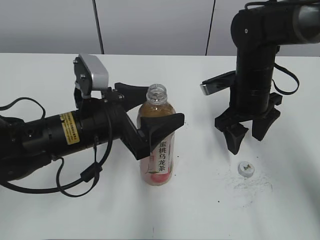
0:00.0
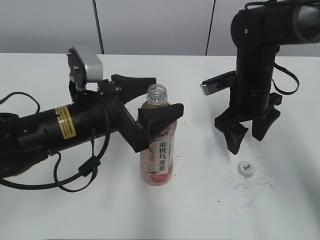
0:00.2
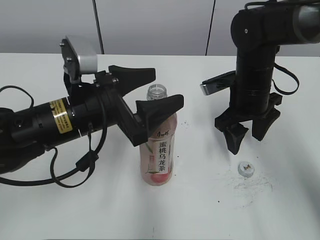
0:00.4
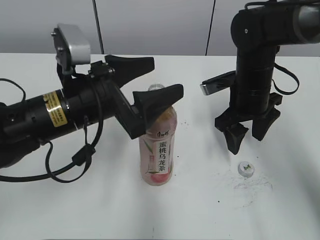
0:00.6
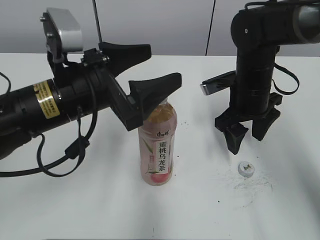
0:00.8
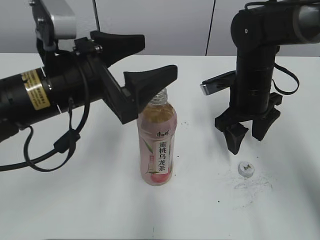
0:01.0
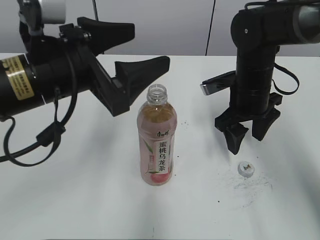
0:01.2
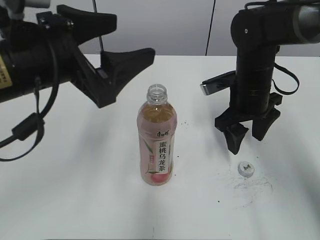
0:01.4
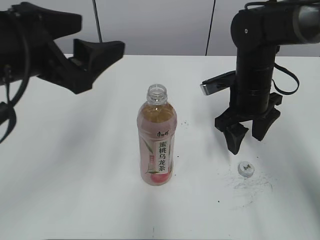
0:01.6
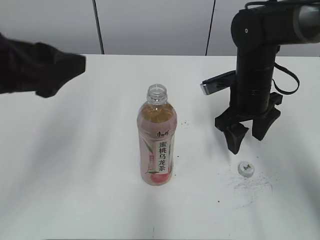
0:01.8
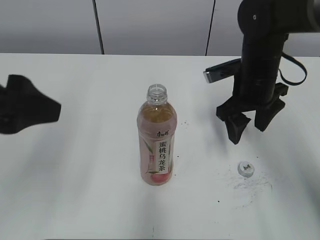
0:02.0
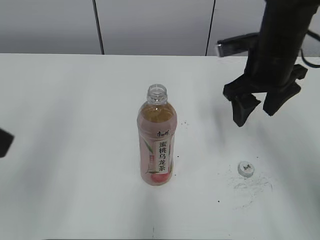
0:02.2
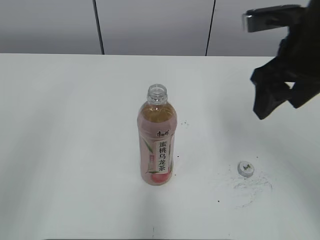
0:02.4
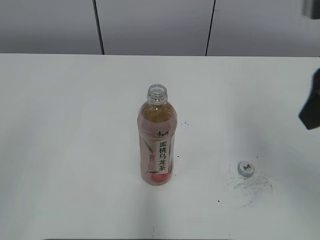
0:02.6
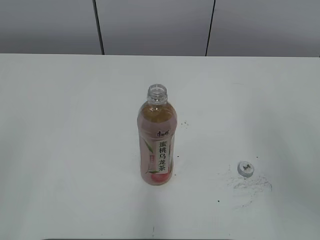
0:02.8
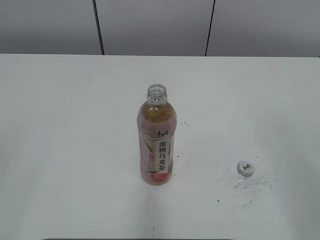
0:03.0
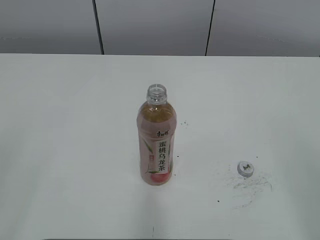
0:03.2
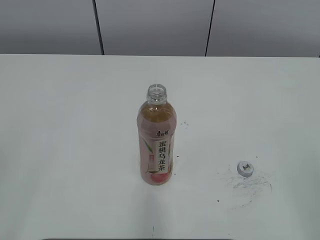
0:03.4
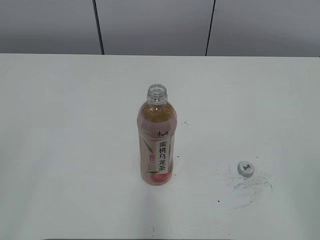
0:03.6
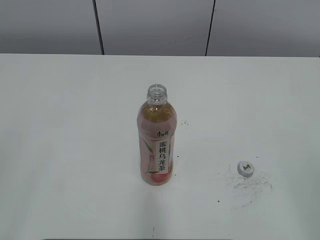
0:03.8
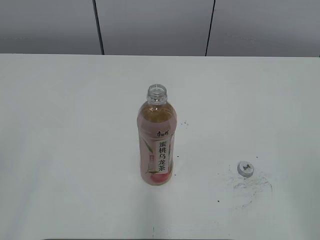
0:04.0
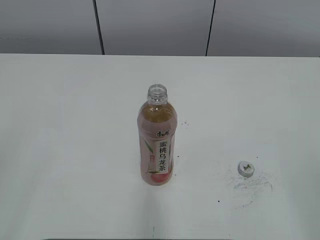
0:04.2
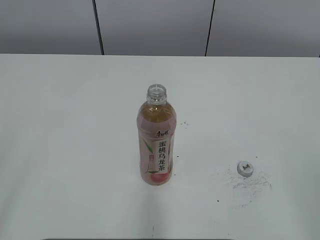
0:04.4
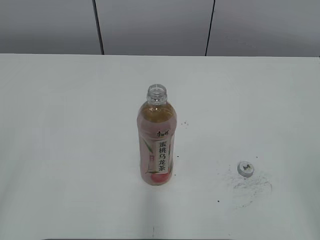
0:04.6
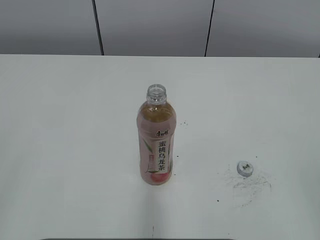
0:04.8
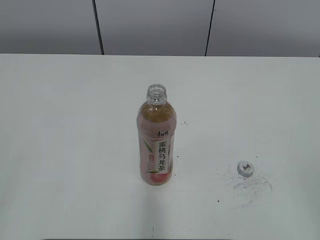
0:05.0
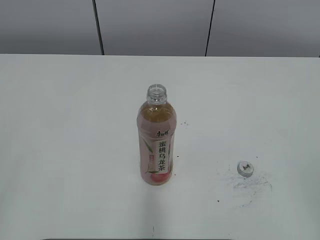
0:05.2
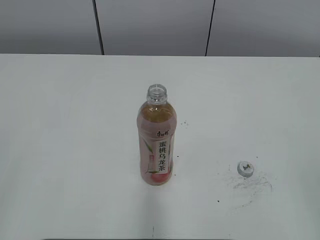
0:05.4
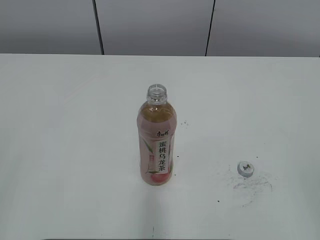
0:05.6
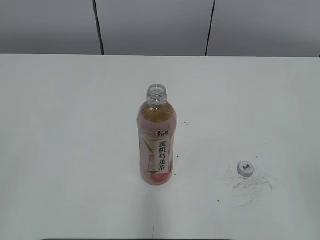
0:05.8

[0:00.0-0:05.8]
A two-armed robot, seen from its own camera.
0:00.0 to 0:01.4: The left gripper travels upward by some 10 cm.
0:01.4 to 0:02.8: The left gripper heads backward and to the left, covering roughly 25 cm. The right gripper is displaced backward and upward by roughly 30 cm.
0:02.8 to 0:04.4: The right gripper goes approximately 15 cm backward, downward and to the right.

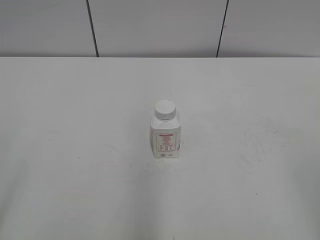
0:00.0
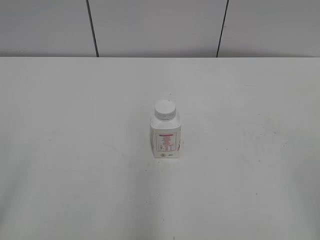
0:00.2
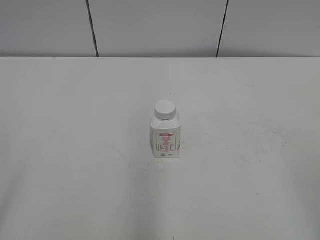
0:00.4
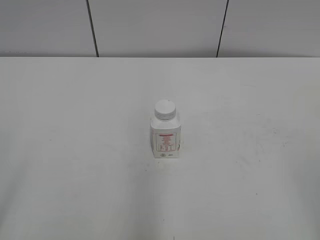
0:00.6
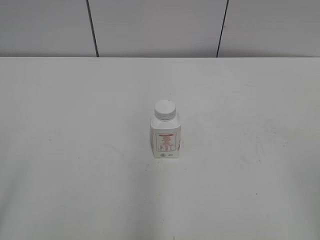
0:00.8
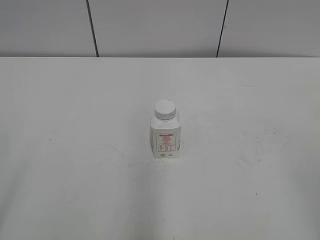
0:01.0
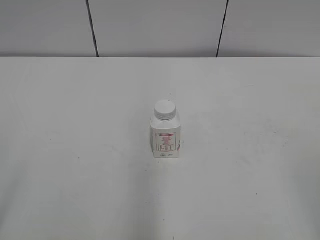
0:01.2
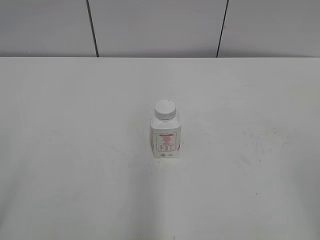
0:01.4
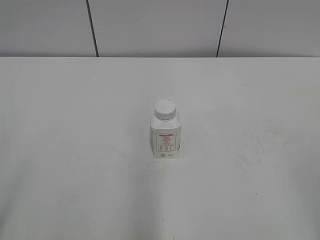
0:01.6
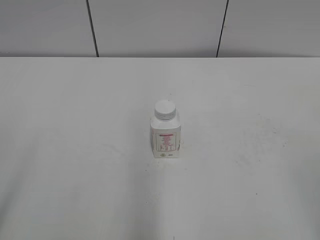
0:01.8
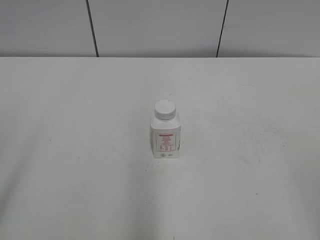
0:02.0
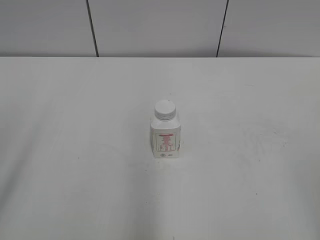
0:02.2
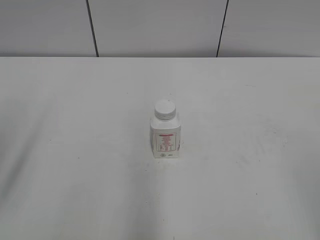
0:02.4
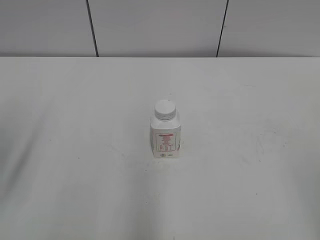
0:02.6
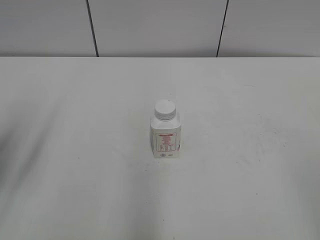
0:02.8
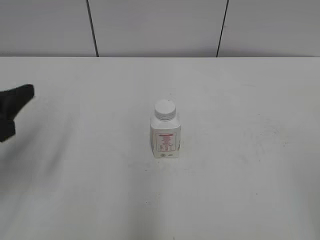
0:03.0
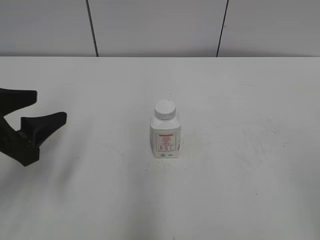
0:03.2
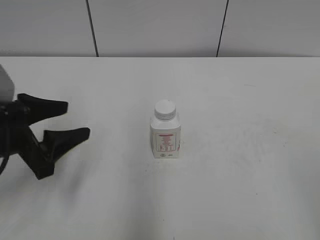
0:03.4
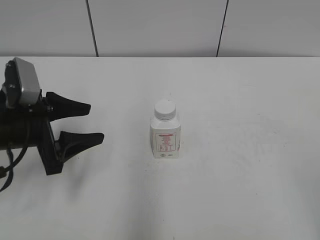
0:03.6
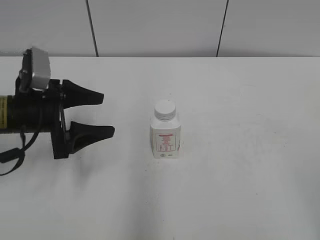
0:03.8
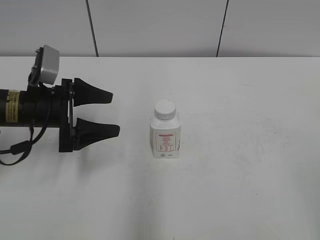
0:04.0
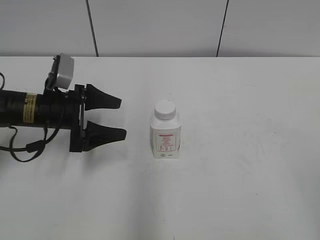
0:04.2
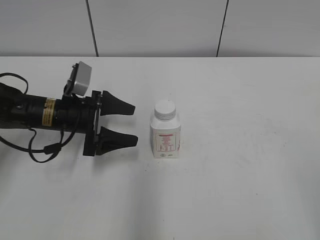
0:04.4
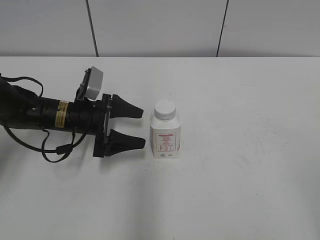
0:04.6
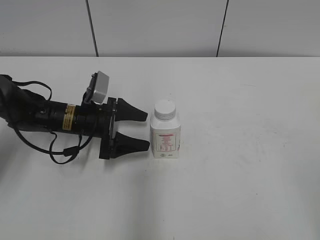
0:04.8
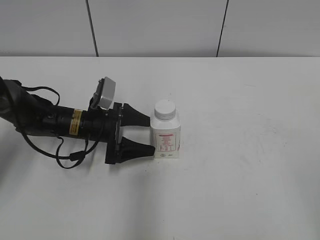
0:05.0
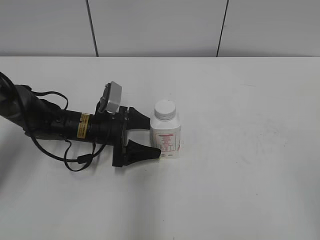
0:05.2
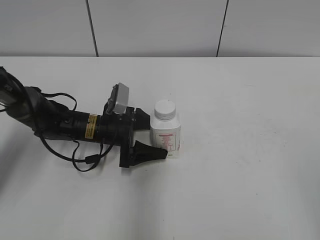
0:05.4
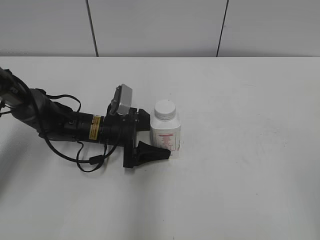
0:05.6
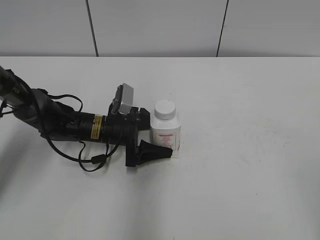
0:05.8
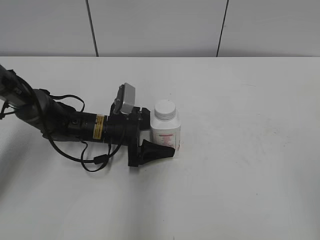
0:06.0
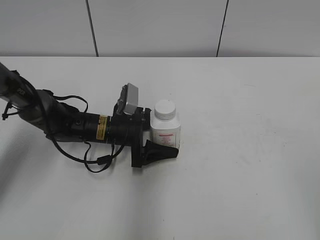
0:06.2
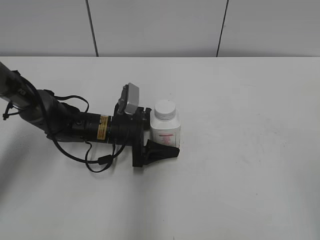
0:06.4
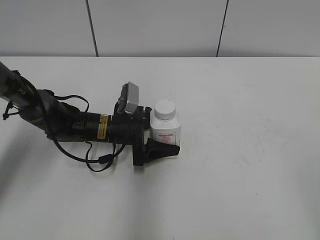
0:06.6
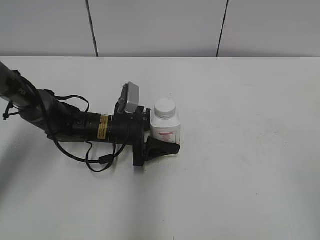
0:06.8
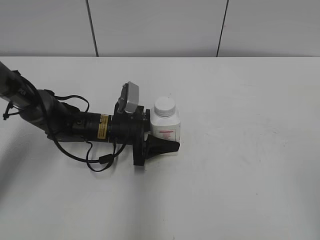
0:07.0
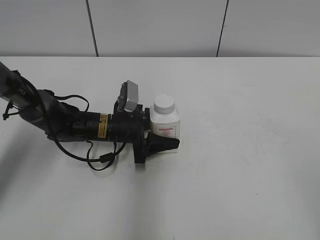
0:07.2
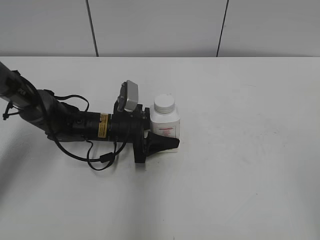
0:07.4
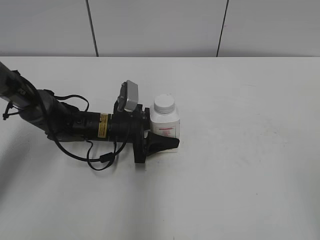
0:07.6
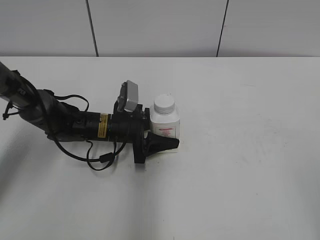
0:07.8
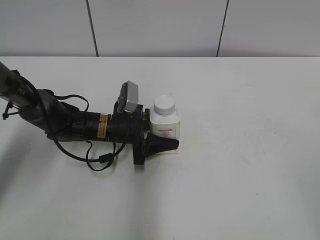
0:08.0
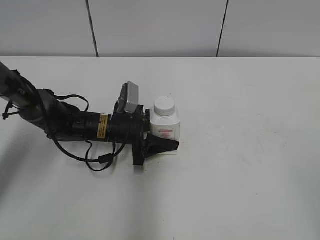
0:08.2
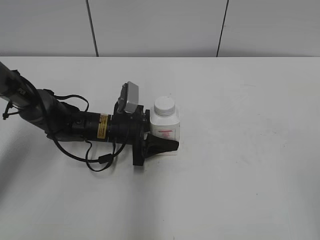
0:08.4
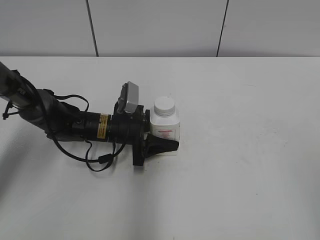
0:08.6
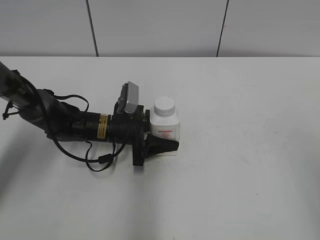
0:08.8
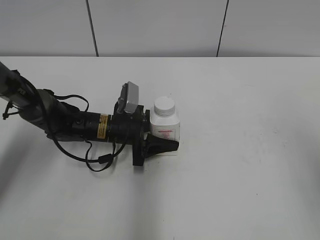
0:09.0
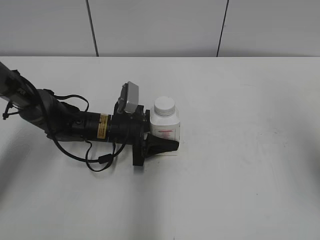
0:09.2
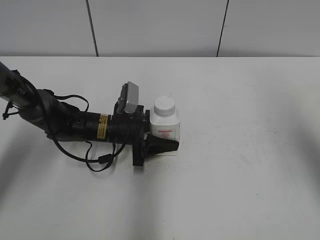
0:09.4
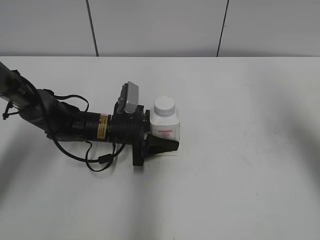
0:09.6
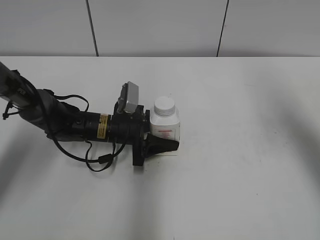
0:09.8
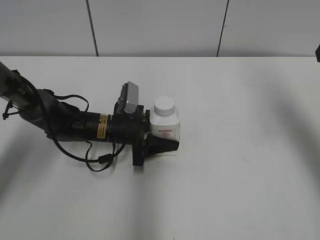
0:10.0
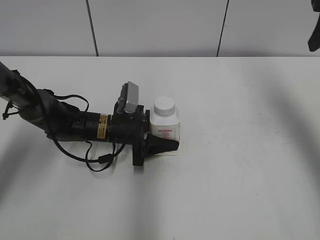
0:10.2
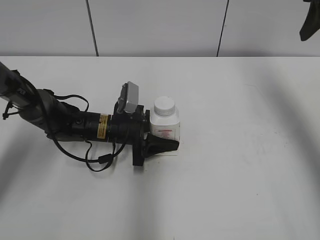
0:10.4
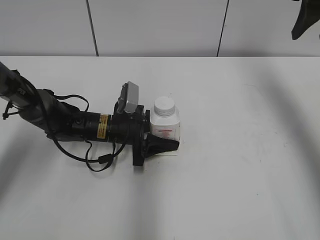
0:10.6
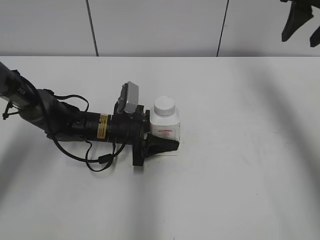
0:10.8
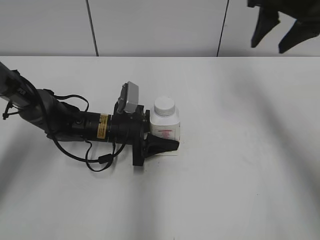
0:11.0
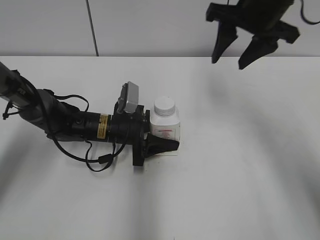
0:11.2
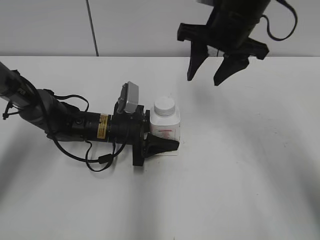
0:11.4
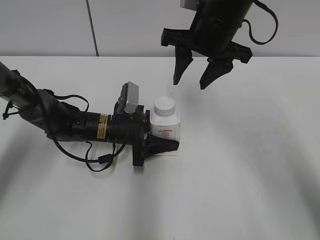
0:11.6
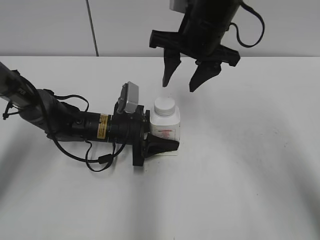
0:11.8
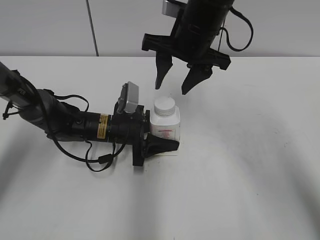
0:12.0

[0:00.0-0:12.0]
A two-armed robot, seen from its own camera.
Step, 0:00.0 to 0:07.6: Grab the Yili Changqing with the left hand.
0:01.6 to 0:03.0: The left gripper shifts roughly 20 cm forward.
0:03.0 to 0:04.4: The left gripper shifts approximately 20 cm forward, downward and to the right, and opens up.
0:04.4 to 0:06.0: The left gripper travels to the right and downward by roughly 10 cm.
0:06.0 to 0:07.6: The left gripper closes.
0:07.6 to 0:09.0: The right gripper travels forward and upward by about 10 cm.
0:09.0 to 0:10.4: The right gripper moves forward, about 25 cm, and closes up.
0:10.4 to 0:12.0: The right gripper moves to the left and downward, approximately 25 cm.

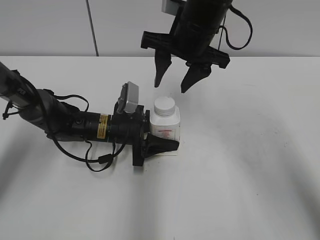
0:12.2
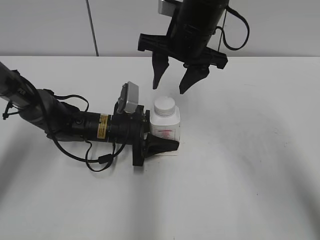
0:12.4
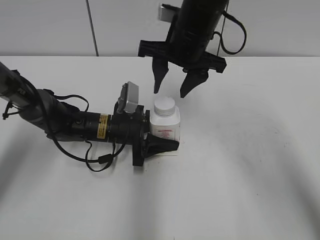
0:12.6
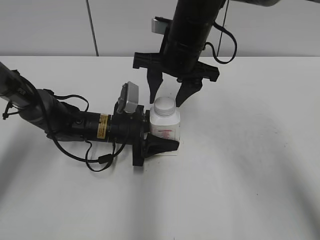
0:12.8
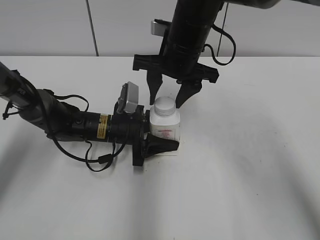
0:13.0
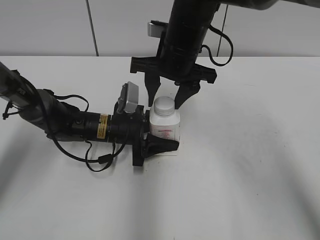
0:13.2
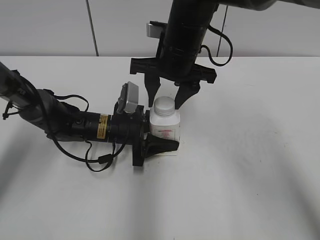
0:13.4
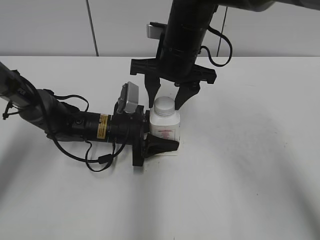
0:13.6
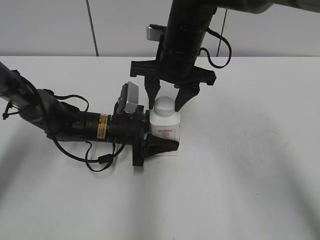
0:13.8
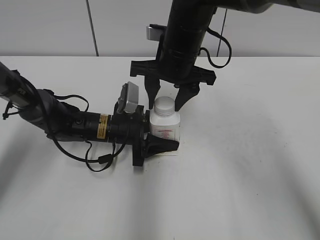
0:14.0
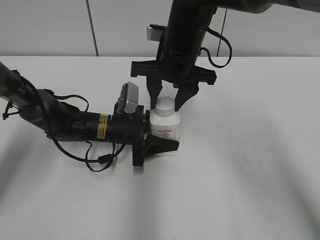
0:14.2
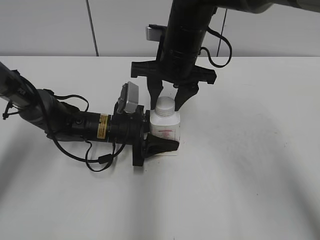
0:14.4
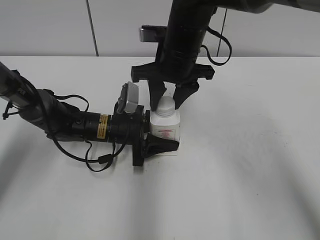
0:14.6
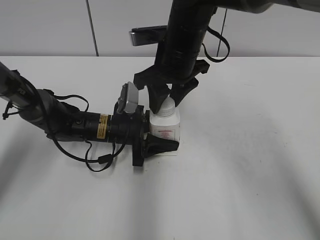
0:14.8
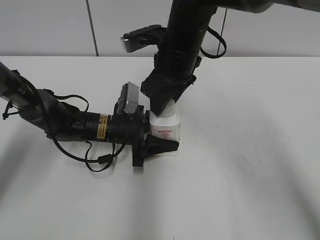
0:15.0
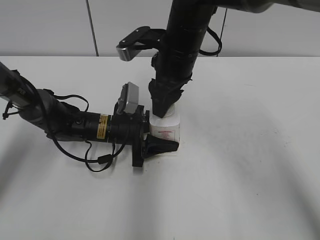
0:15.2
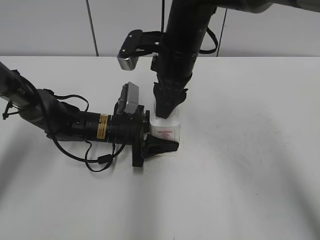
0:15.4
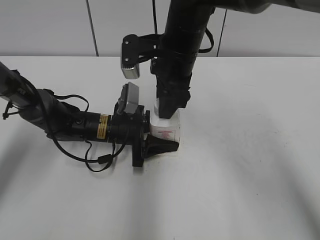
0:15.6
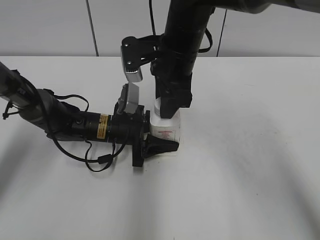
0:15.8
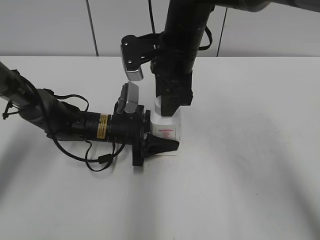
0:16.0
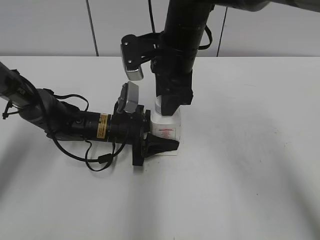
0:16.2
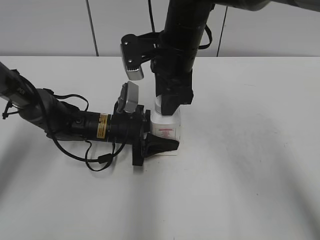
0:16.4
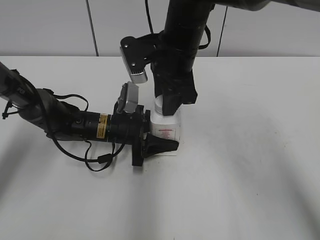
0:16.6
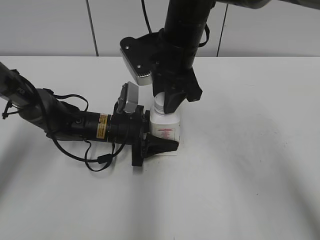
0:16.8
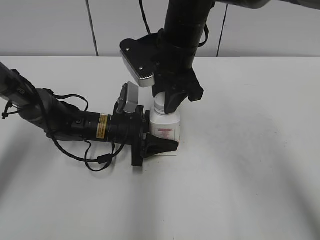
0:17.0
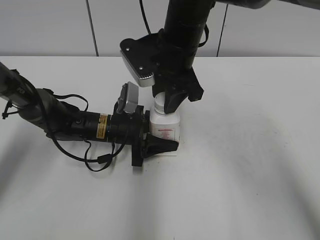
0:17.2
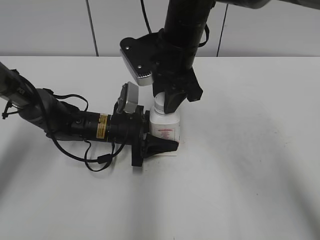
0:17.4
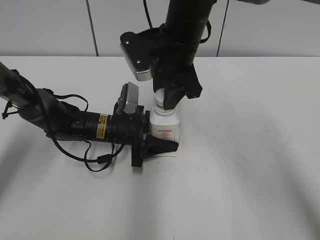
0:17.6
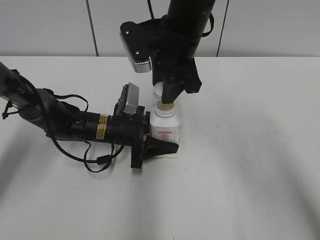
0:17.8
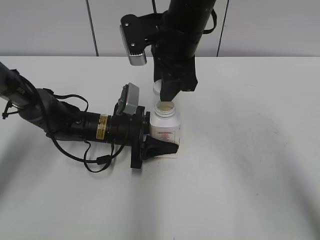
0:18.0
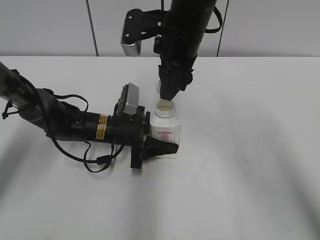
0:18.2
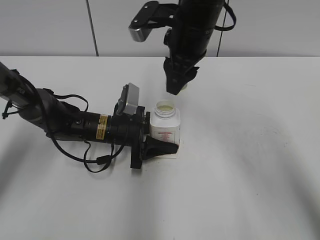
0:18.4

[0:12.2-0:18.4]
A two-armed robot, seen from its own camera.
Step, 0:12.2 to 0:17.4: Twist the bottle cap with the right hand.
0:12.2 to 0:13.8: The grippers move only a little.
0:13.8 to 0:15.4: The right gripper closes.
